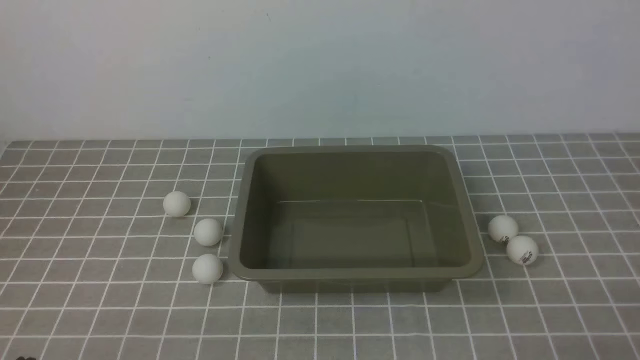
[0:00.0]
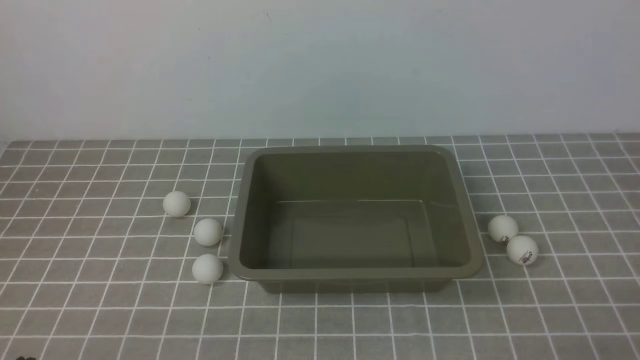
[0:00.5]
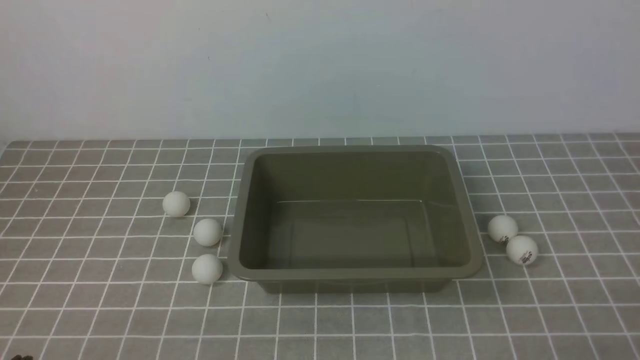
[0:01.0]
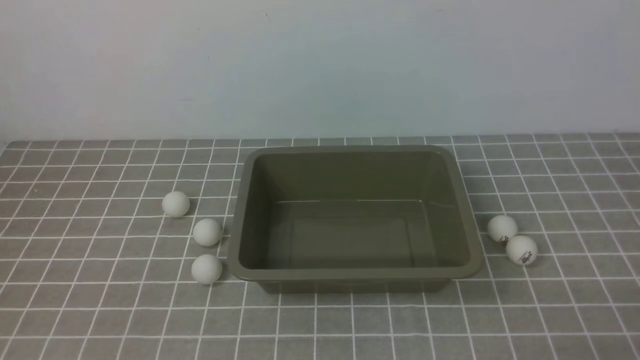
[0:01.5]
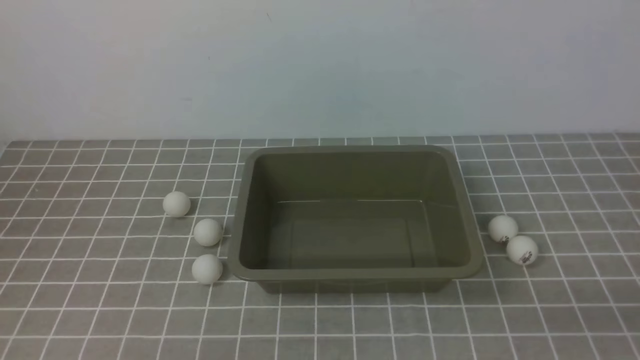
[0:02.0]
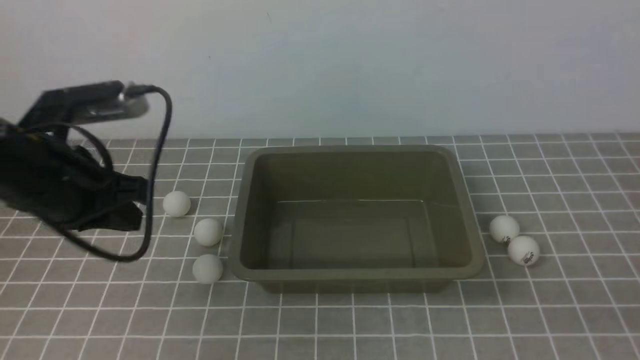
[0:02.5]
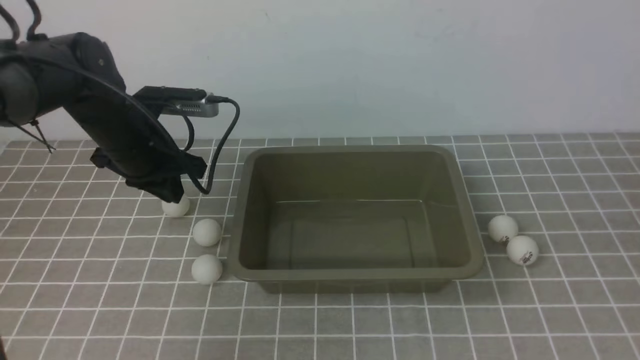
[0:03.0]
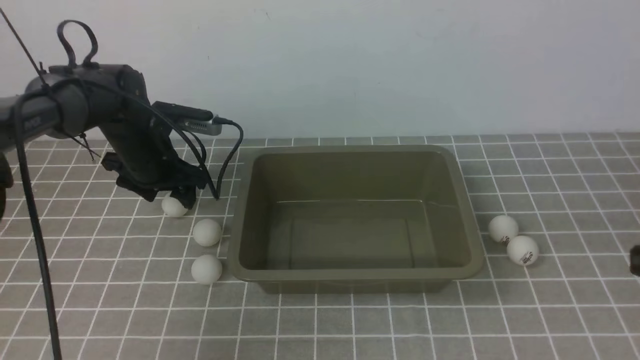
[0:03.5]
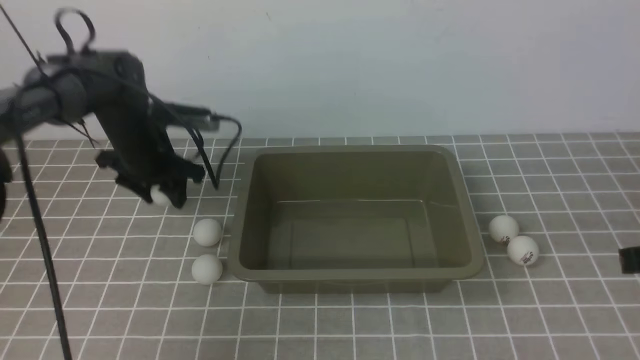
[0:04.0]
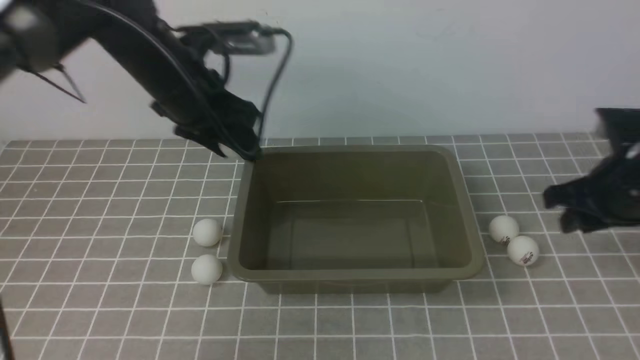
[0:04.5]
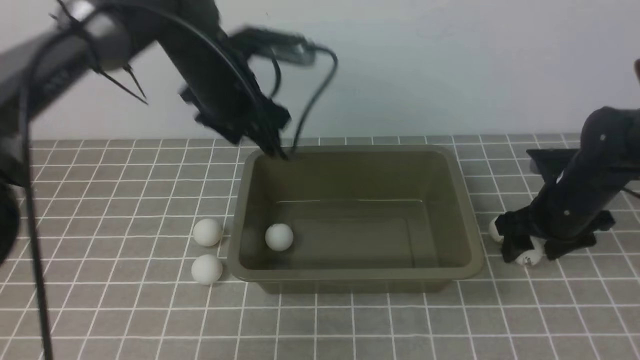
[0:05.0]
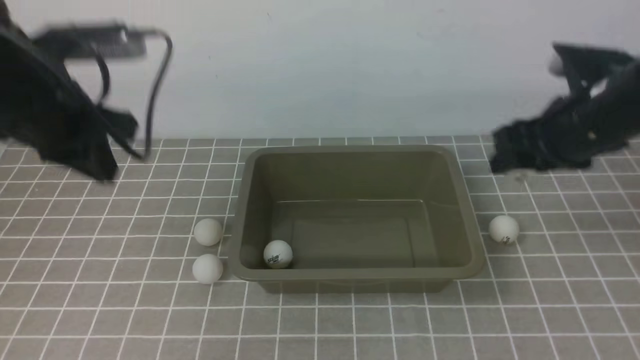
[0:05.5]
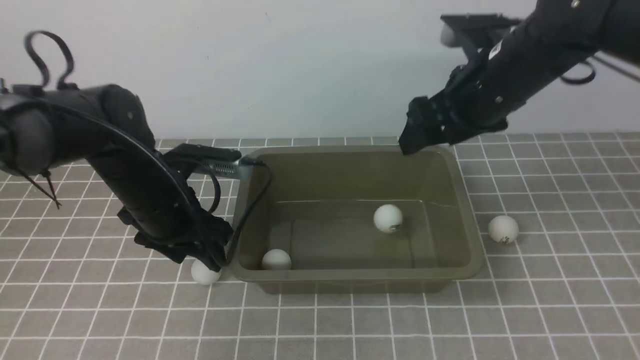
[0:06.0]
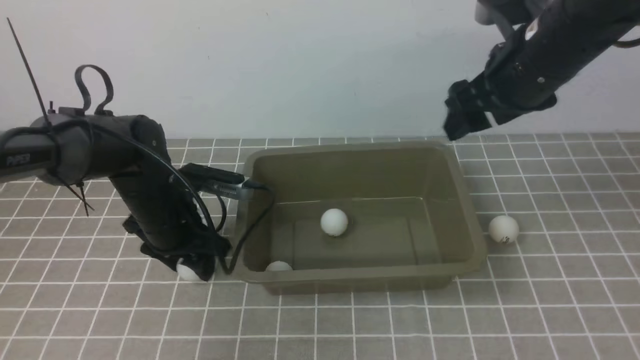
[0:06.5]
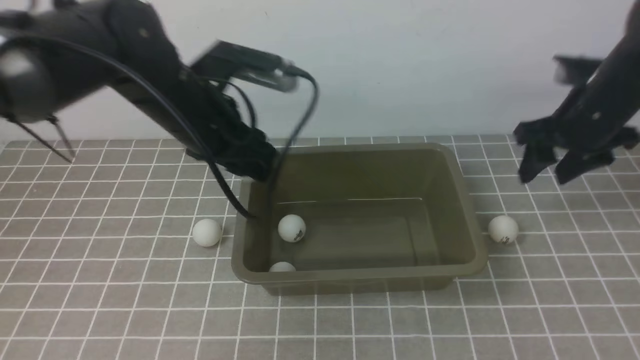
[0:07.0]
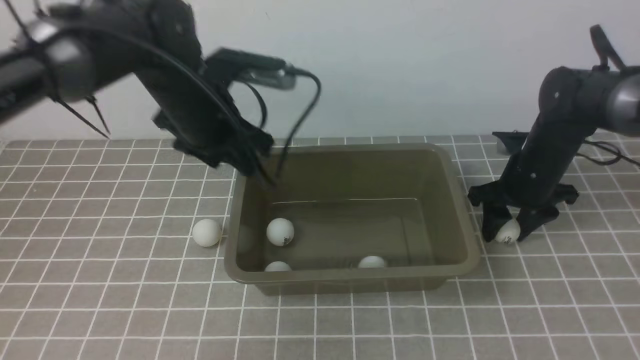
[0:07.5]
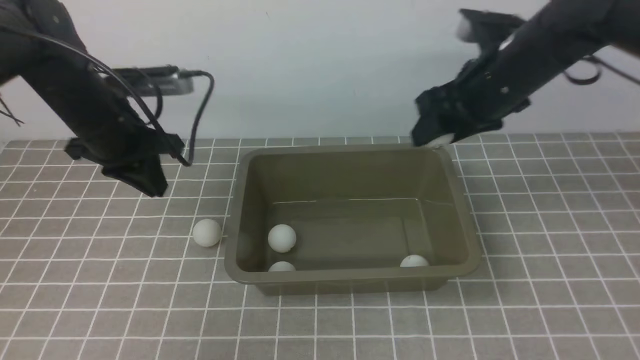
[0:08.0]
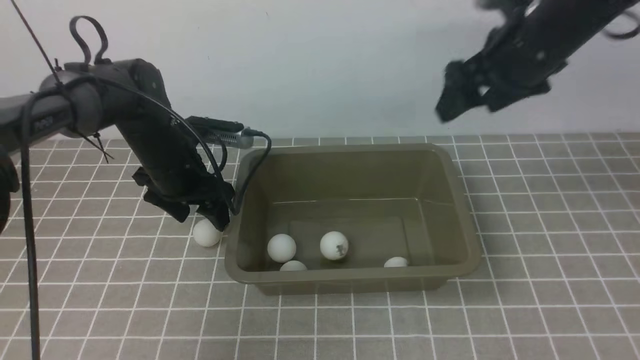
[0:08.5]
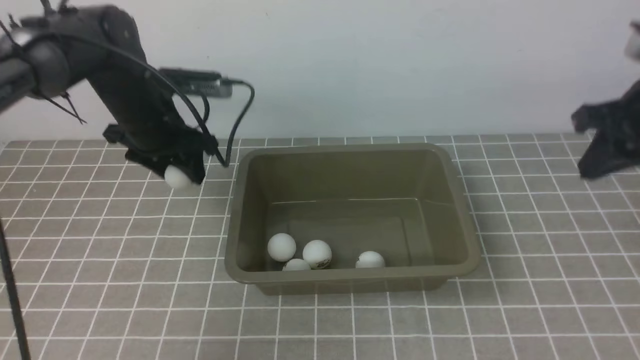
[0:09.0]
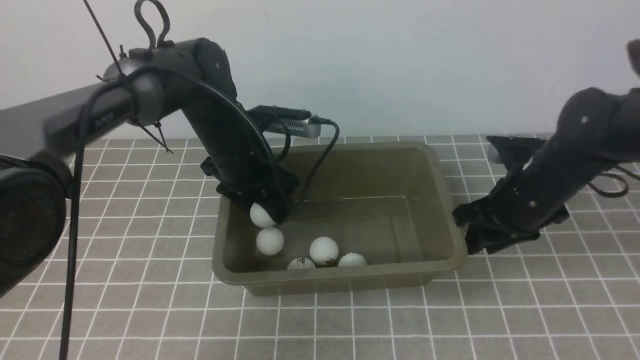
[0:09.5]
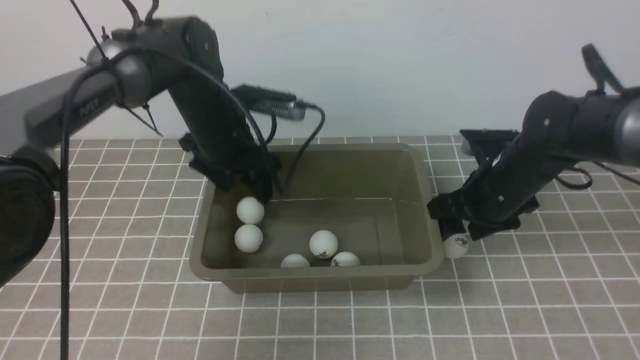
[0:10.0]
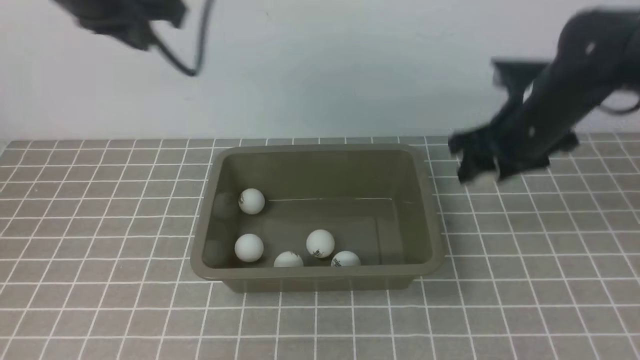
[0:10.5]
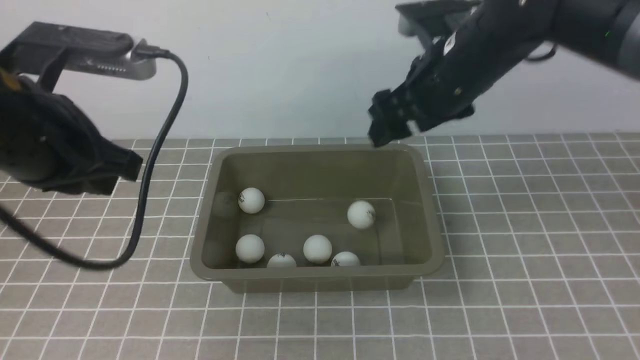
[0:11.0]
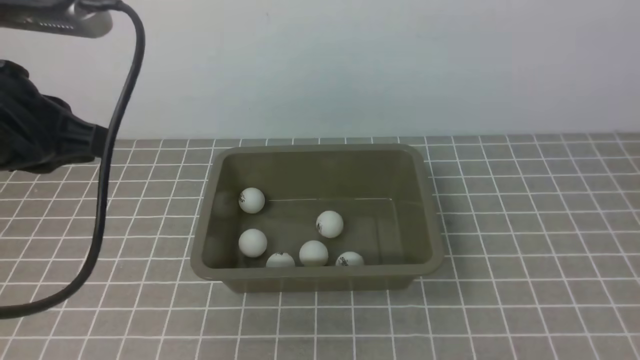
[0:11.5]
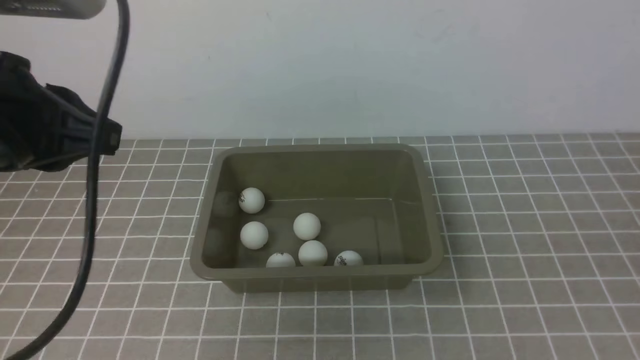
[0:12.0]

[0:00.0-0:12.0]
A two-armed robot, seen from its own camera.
Step, 0:00.0 to 0:04.0: use the left arm to clamp the table tennis ball closest to it.
Step, 0:04.5 to 0:05.0: use the right arm to clamp the table tennis ball closest to it.
Step, 0:06.0 to 0:06.5: use the left arm to clamp the table tennis ball closest to it.
Step, 0:08.5 to 0:09.0: use the left arm to clamp the table tennis ball closest to it.
Step, 0:09.5 to 0:10.0: use the left arm to put the table tennis ball into the box.
Step, 0:10.5 to 0:11.0: use the right arm to put the table tennis ball into the box.
0:02.0 to 0:04.0: The left gripper is displaced forward by roughly 35 cm, and opens, while the right gripper shifts some 15 cm forward and upward.
0:04.0 to 0:06.0: The left gripper is displaced backward by roughly 10 cm, reaches some 10 cm upward, then returns, and closes and opens again; the right gripper moves forward and to the left, approximately 20 cm, and opens its fingers.
0:06.0 to 0:08.0: The right gripper moves about 15 cm downward and comes back. The left gripper heads upward and forward, covering roughly 10 cm, and closes its fingers.
0:08.0 to 0:10.0: The left gripper heads to the right, covering about 10 cm, and opens its fingers; the right gripper travels downward by roughly 10 cm, and closes, then reopens.
0:10.0 to 0:12.0: Both grippers move backward and upward, about 35 cm. The right gripper closes up, while the left gripper closes its fingers.

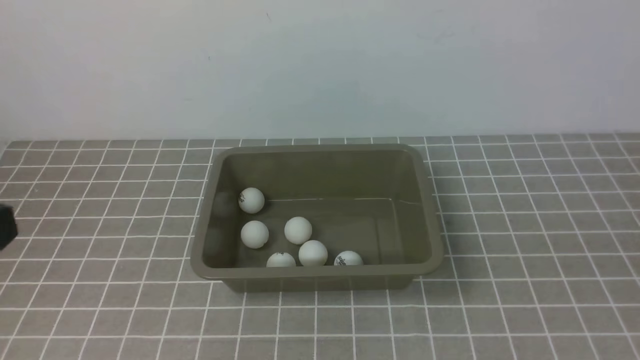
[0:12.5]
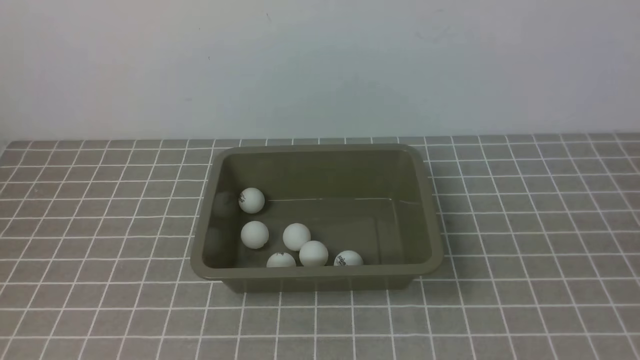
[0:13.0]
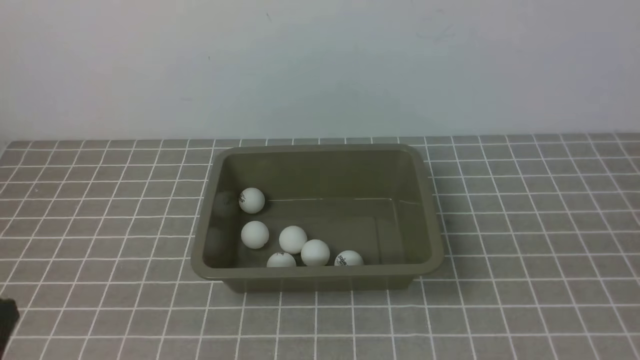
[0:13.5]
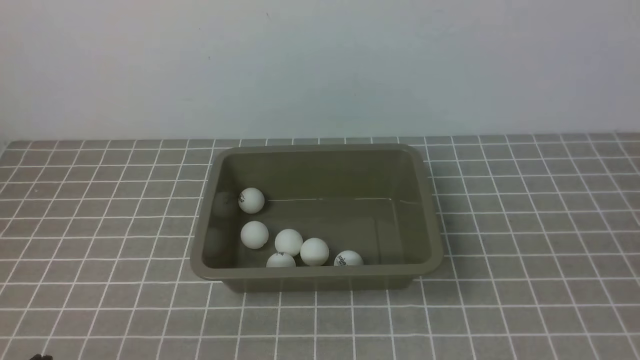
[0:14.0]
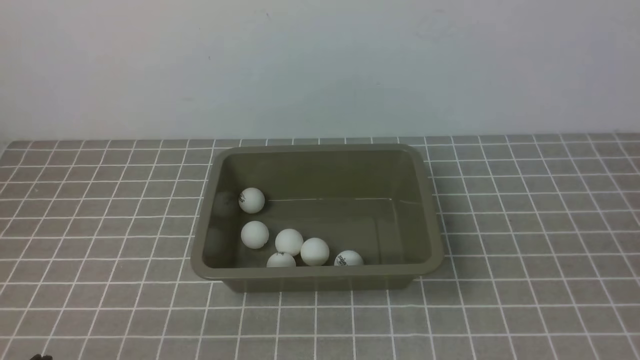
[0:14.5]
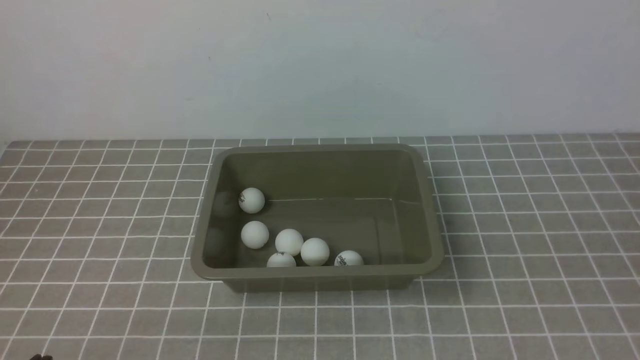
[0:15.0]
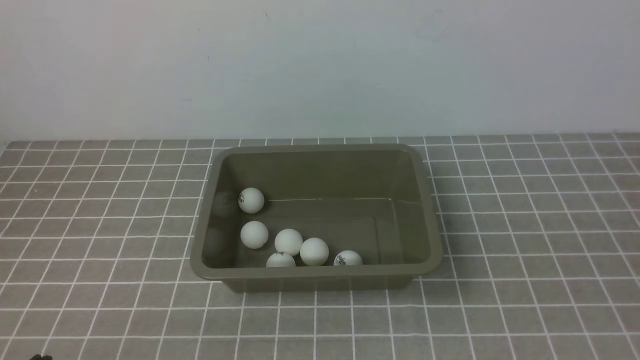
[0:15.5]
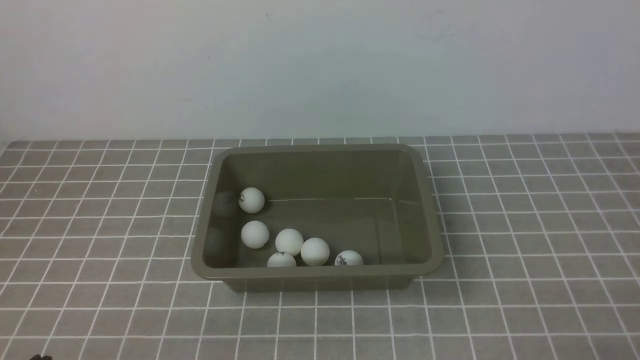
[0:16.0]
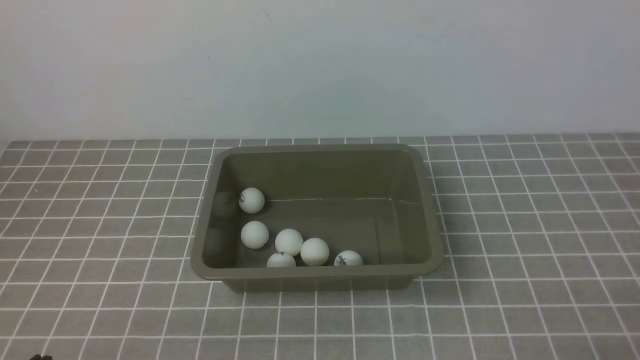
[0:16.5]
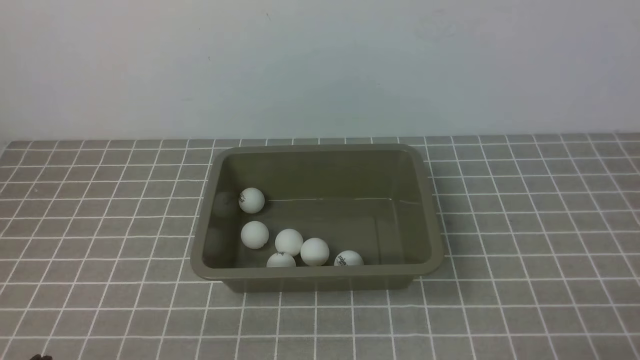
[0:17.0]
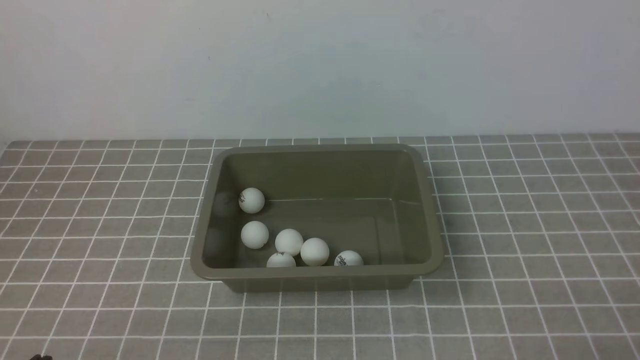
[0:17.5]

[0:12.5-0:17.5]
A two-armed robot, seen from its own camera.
0:12.5 to 0:15.0: The left gripper heads downward, covering approximately 20 cm.

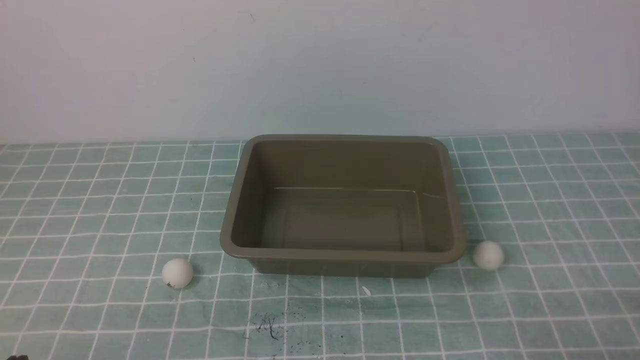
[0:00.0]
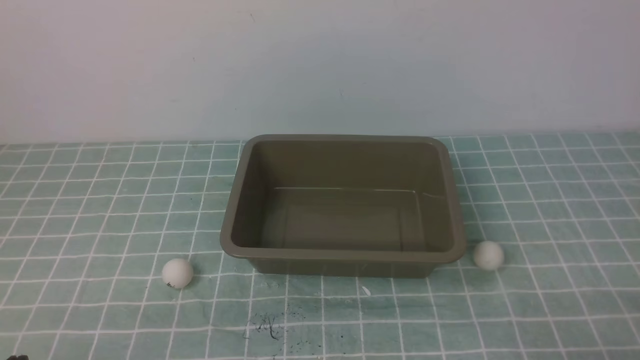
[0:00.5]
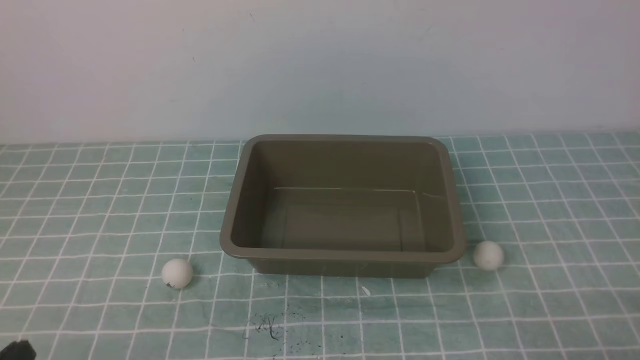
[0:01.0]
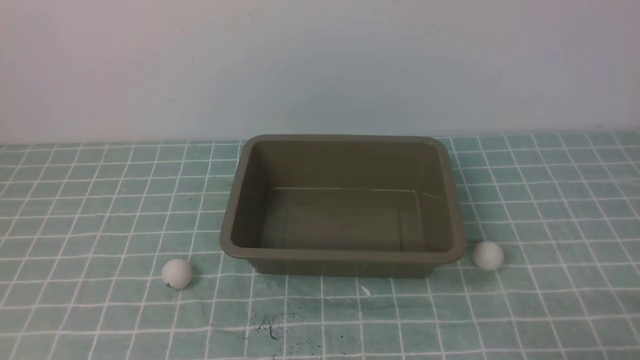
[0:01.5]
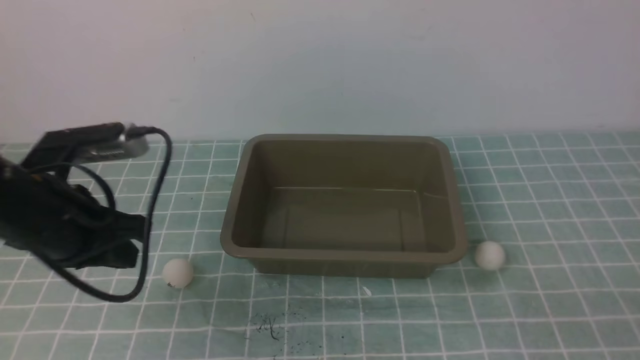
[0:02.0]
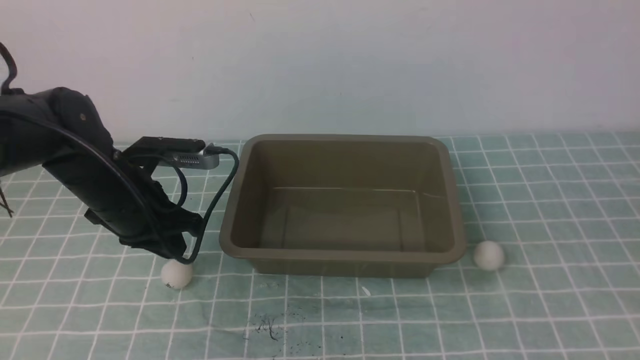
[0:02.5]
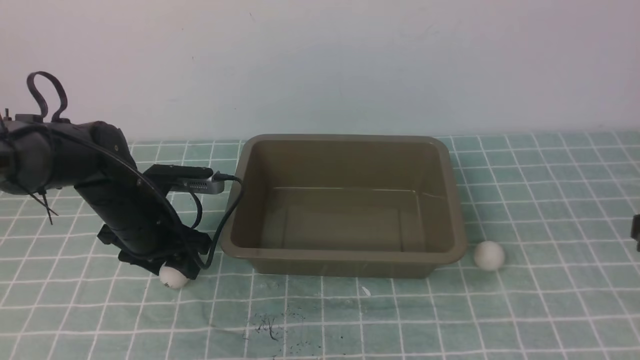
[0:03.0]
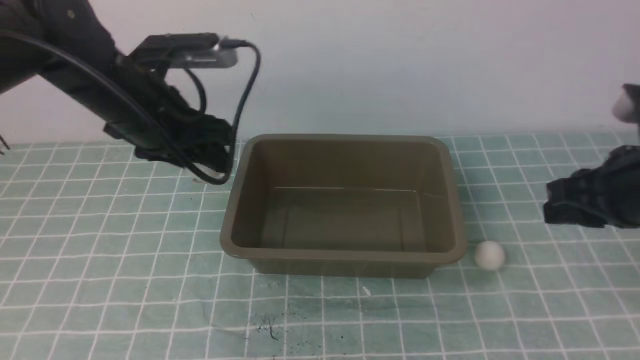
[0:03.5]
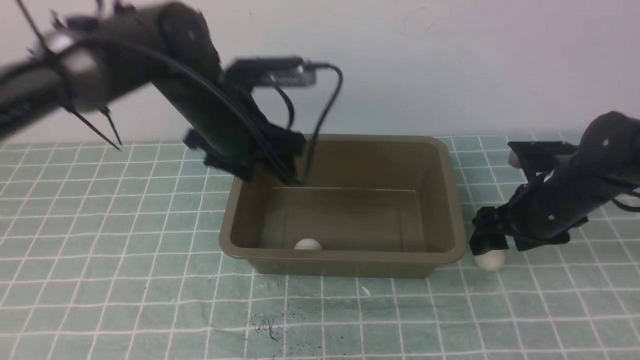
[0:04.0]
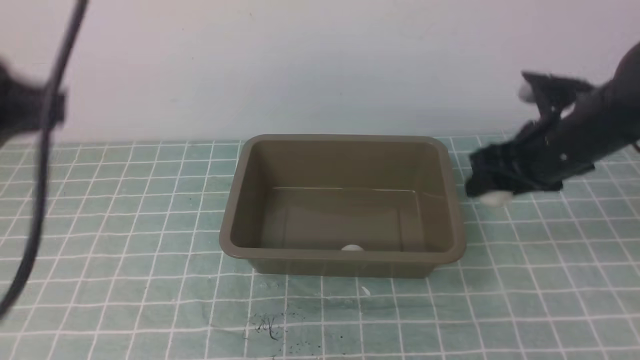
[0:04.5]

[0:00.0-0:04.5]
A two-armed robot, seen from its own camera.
Step, 0:00.0 to 0:03.0: use the left arm to clamp the table tennis ball closest to it.
0:00.0 to 0:02.0: The left gripper is displaced forward and upward by about 20 cm.
0:02.0 to 0:04.5: The left gripper goes approximately 15 cm upward and backward, and opens and closes again. Meanwhile the right gripper heads forward, covering some 30 cm, and opens up.
